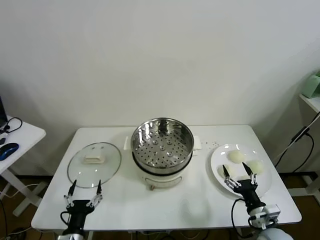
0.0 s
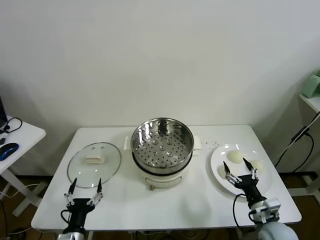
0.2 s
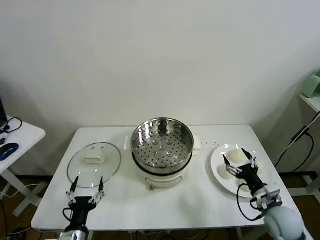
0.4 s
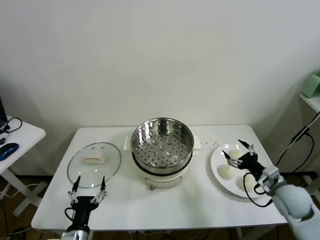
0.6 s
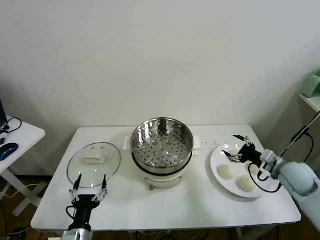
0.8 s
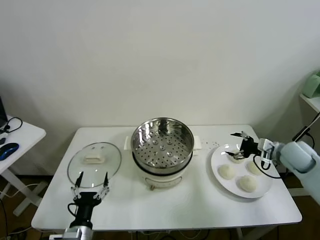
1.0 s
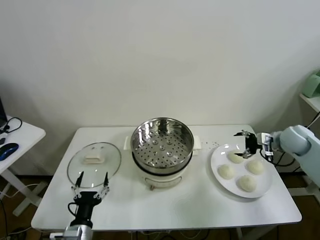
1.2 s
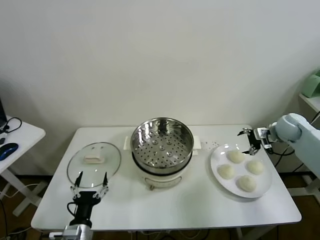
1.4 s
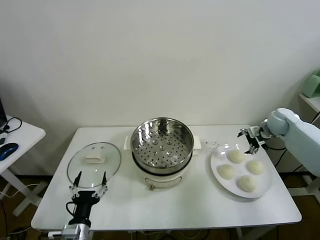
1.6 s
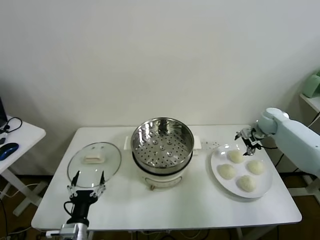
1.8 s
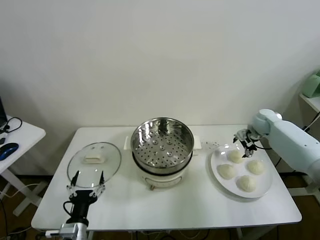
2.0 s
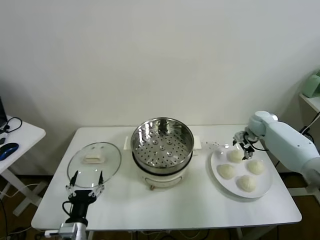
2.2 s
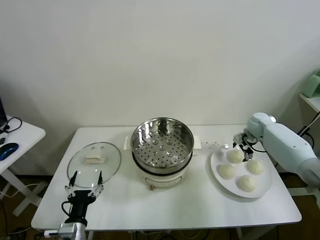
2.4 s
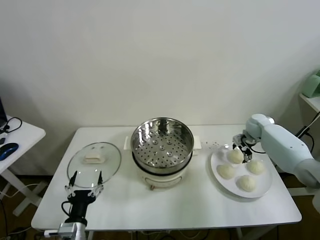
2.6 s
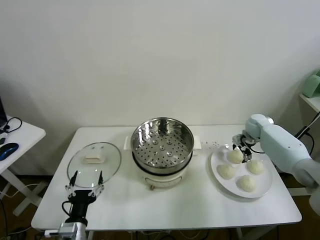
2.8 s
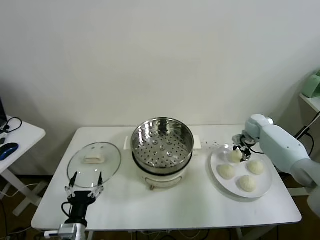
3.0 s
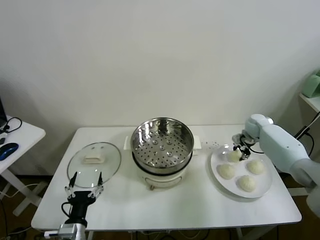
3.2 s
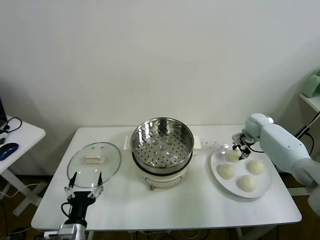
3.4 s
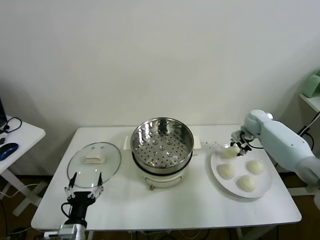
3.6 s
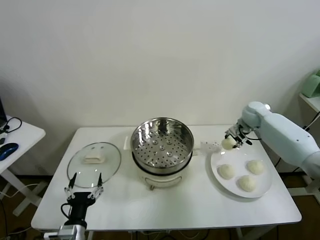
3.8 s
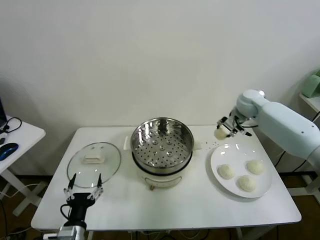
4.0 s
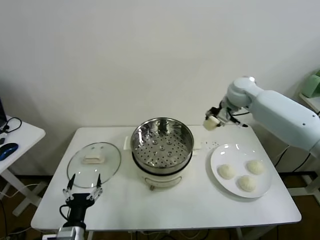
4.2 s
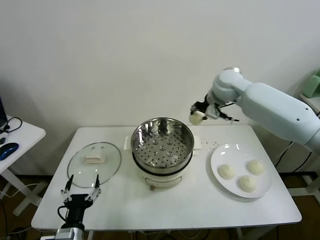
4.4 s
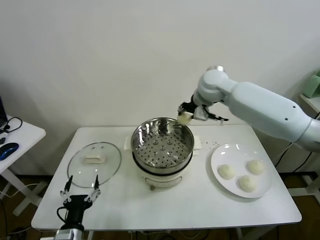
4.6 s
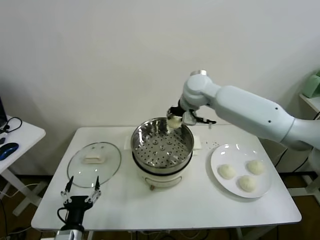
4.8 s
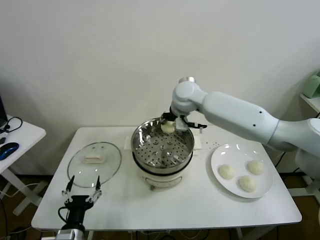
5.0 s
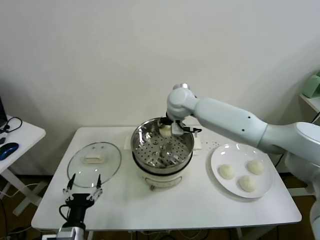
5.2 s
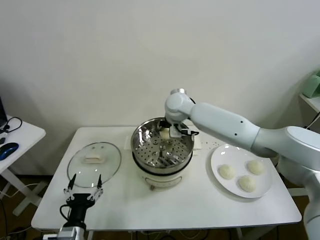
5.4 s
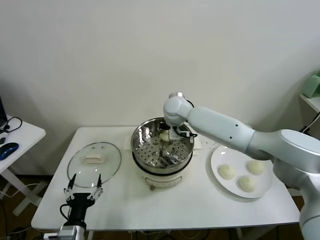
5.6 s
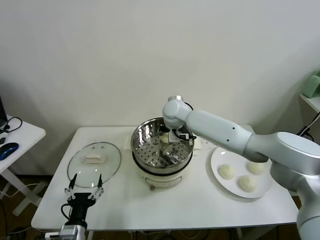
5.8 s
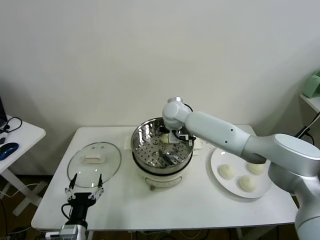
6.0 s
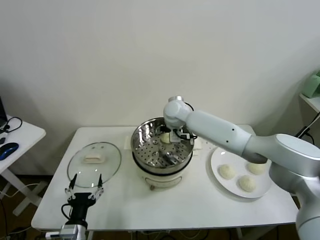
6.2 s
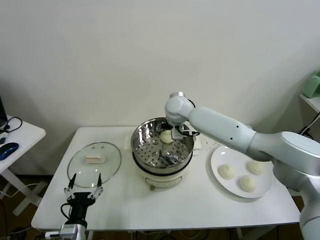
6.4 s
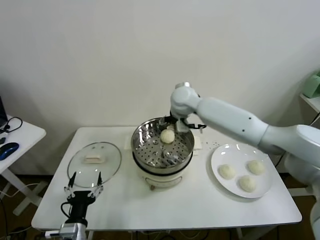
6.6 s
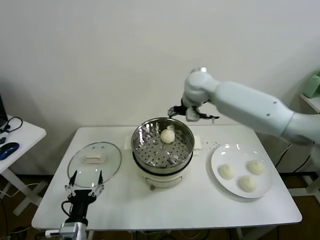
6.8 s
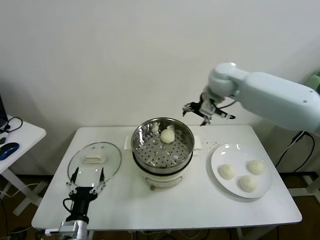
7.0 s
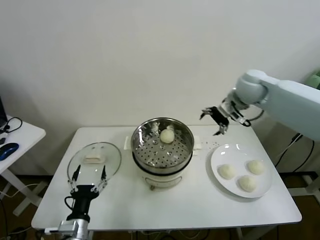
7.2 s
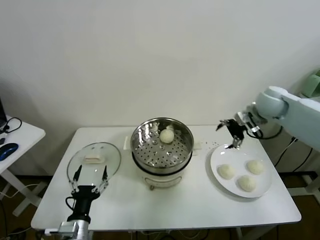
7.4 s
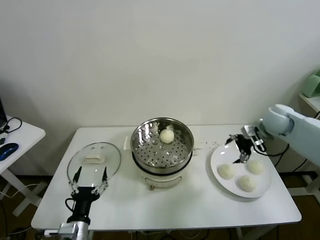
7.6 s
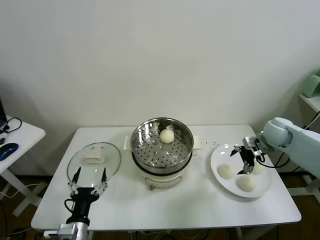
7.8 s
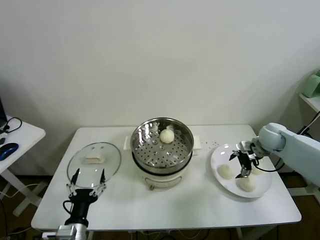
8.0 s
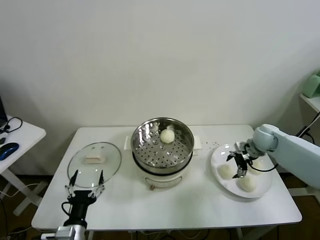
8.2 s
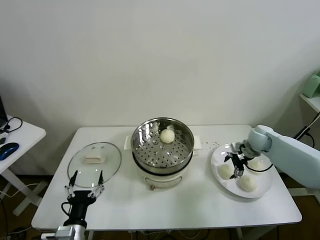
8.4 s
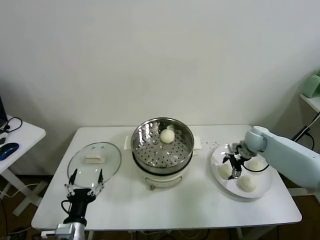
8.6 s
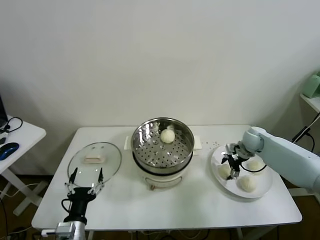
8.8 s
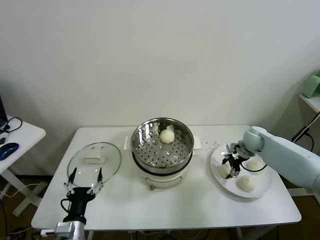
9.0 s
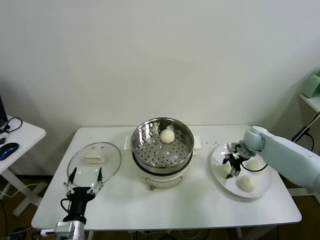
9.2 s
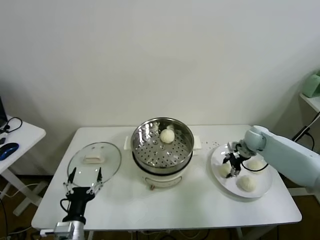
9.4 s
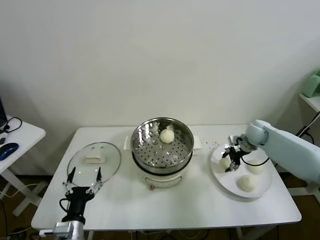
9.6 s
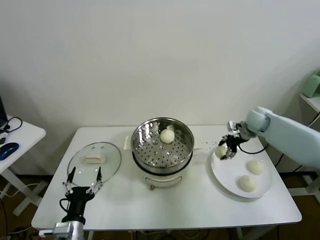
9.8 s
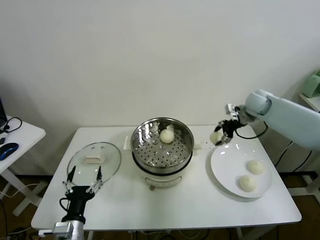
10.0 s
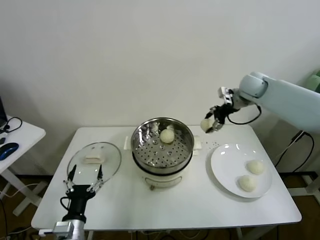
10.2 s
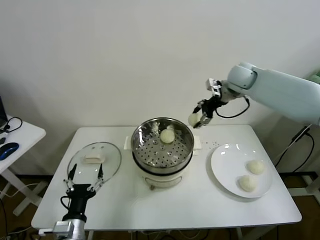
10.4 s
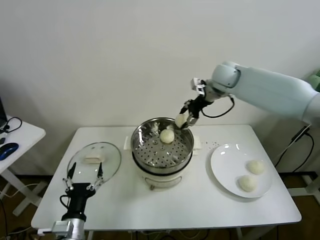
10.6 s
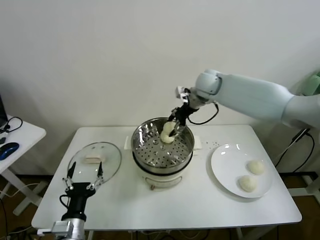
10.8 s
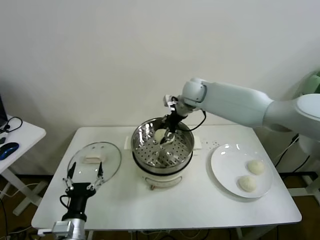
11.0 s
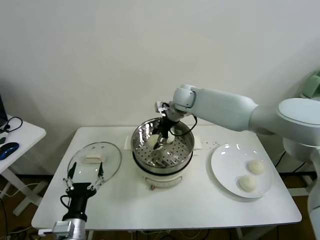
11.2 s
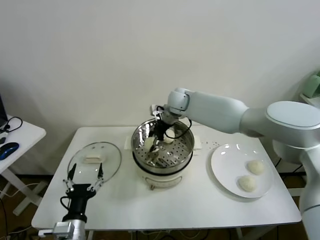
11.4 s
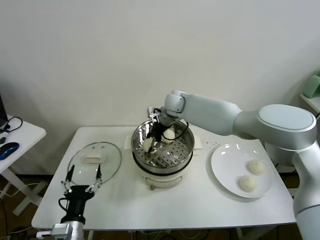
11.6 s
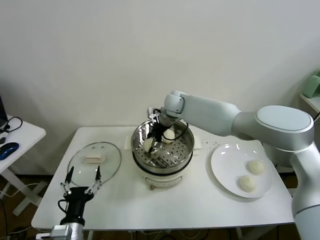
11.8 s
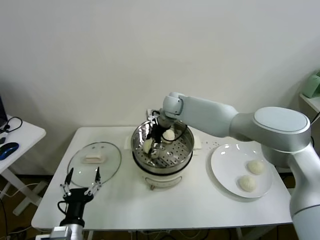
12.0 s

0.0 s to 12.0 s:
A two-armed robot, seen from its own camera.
Task of the whole recording: take steamed baozi put them in steamer.
Step, 0.0 to 3.2 s: Grasp the baozi in the plate with right gripper.
Step, 3.4 to 6.2 s: Place the baozi on the steamer with right gripper.
Step, 6.4 to 9.2 s: Grasp the baozi in the plate with right gripper.
1.6 to 3.0 s: The right gripper is displaced downward by approximately 5 cm, and closes its fingers.
3.0 to 4.4 s: The right gripper shifts some 35 cm upward and to the left.
4.4 to 6.0 s: The right gripper shifts about 20 cm to the left and downward, and opens up.
6.0 to 7.6 s: The right gripper goes approximately 35 cm to the right.
7.6 to 9.0 s: The right gripper is displaced downward by approximately 10 cm, and closes up.
9.0 to 10.4 s: The right gripper shifts approximately 30 cm upward and to the left.
10.4 to 12.0 s: The right gripper goes about 25 cm to the left and downward.

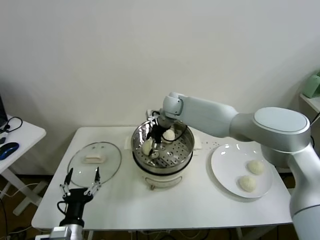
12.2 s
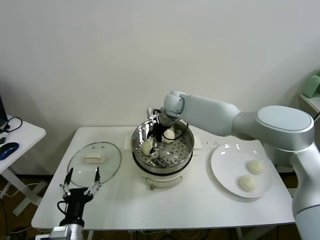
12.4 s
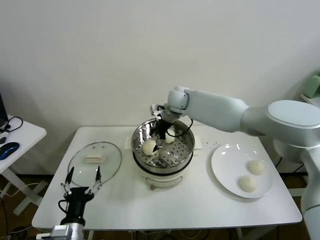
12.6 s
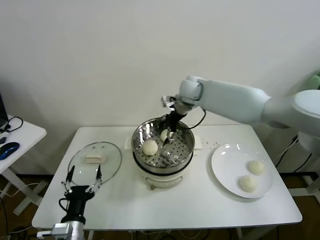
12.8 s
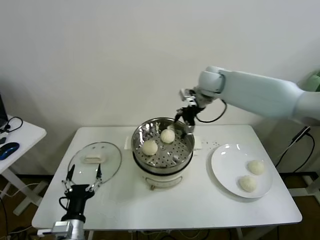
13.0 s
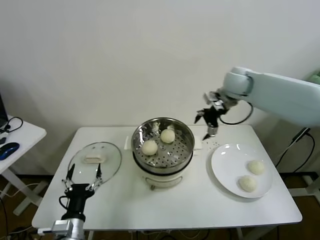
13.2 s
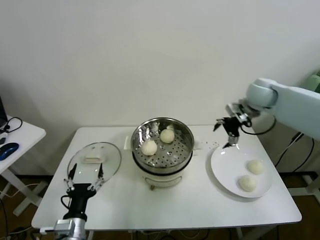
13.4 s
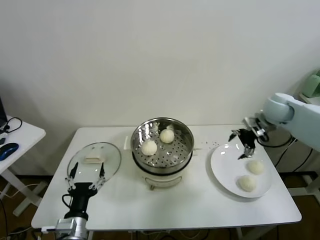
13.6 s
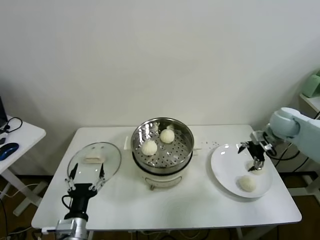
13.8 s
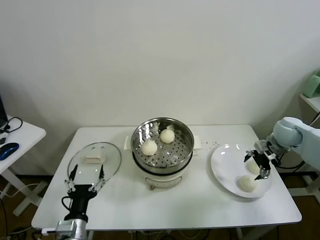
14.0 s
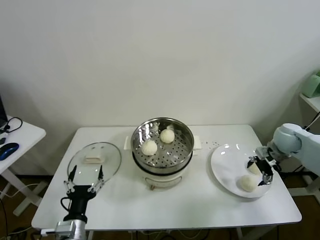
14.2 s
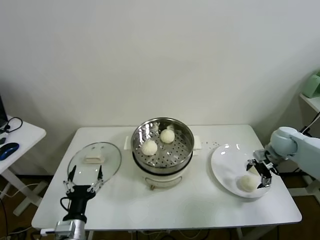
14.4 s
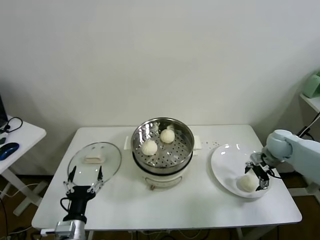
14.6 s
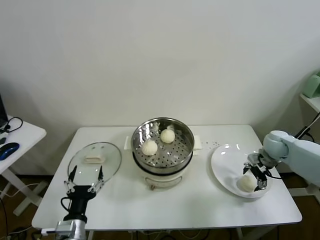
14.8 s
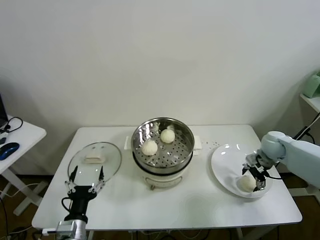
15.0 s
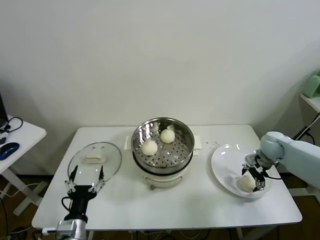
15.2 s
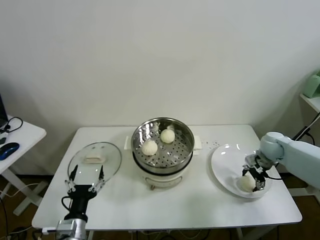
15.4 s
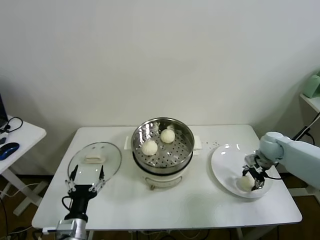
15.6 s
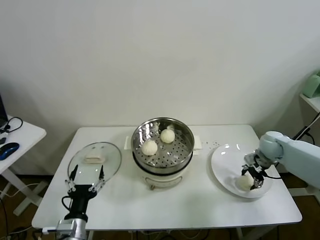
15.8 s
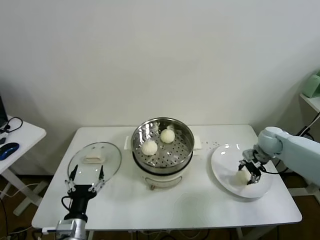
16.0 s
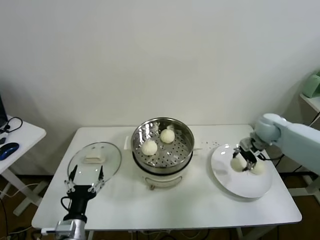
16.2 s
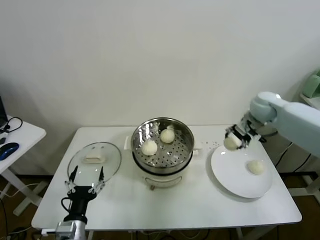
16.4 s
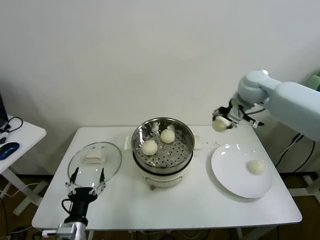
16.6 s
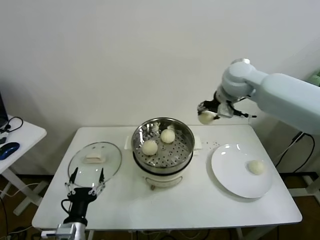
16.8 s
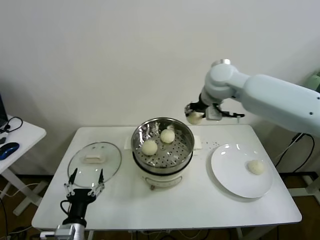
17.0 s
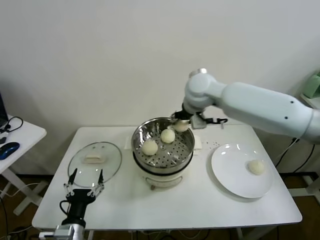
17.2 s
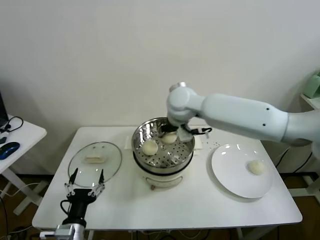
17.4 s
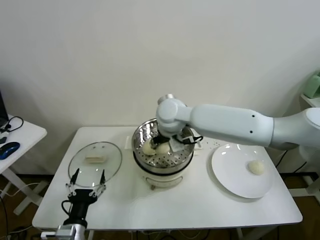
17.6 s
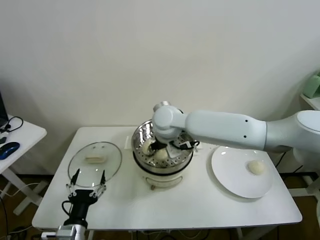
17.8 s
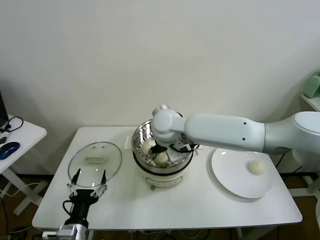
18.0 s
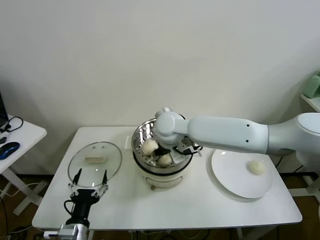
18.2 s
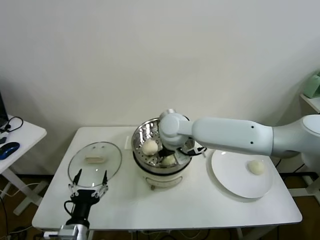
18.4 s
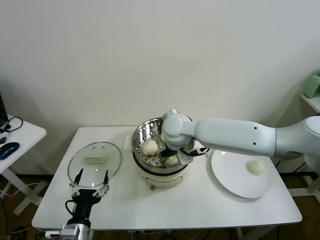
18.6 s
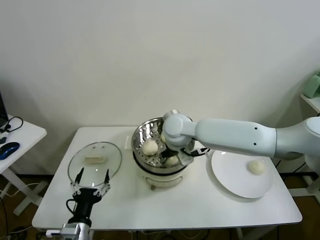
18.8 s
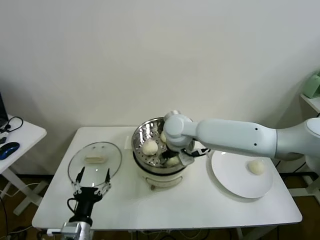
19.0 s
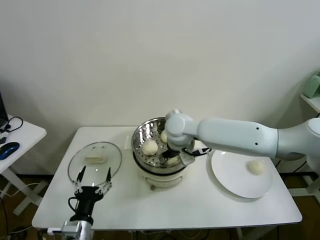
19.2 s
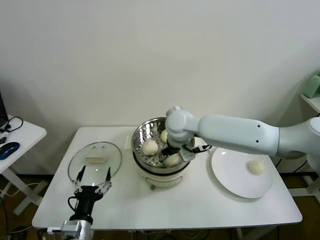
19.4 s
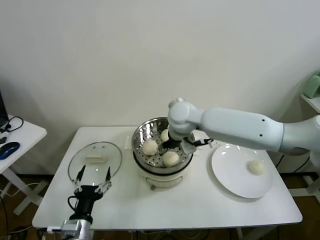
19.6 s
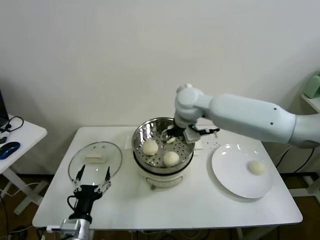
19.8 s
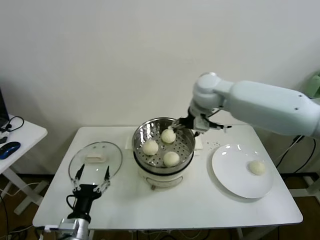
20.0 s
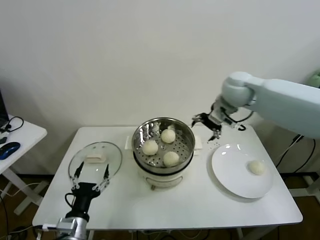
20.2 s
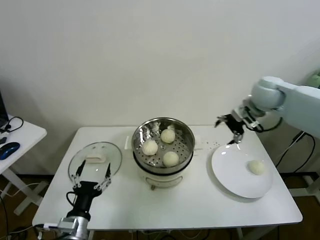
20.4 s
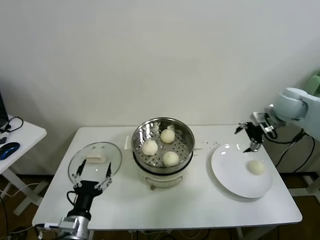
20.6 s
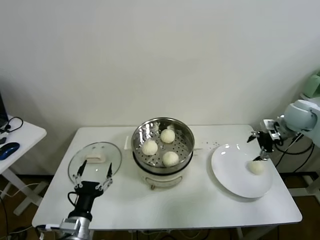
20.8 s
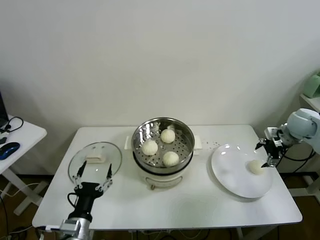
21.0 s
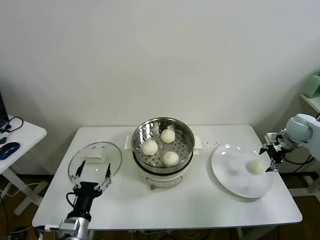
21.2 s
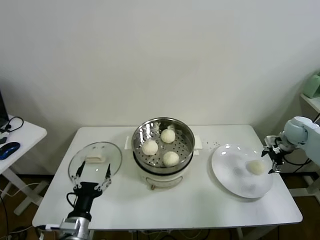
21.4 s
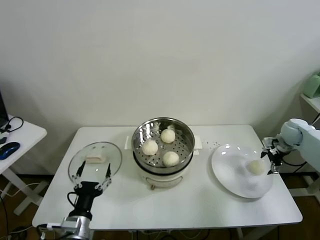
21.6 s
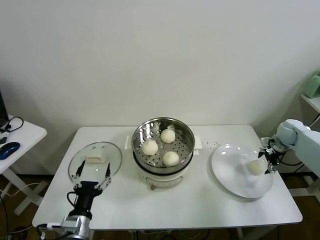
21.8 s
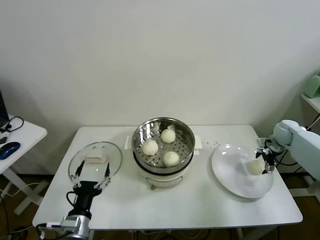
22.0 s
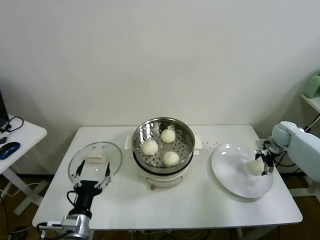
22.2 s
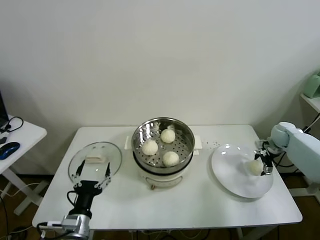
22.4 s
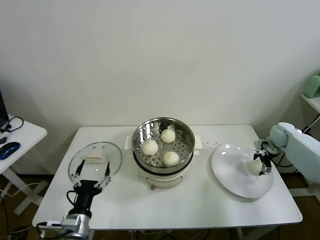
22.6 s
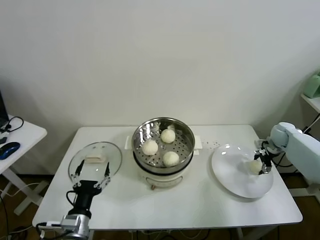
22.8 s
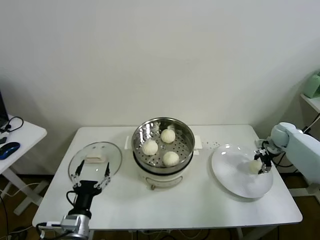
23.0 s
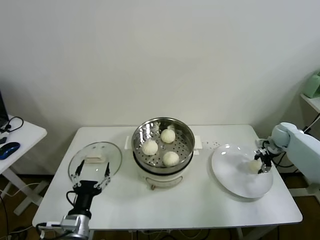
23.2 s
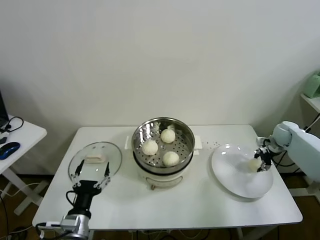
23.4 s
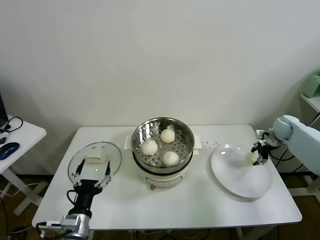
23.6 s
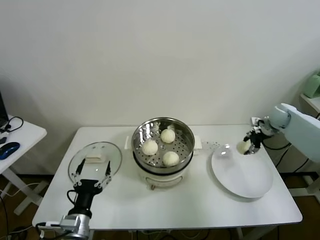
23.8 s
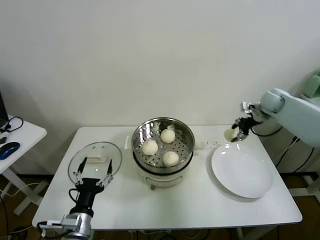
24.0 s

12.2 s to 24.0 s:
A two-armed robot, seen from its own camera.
Task of the whole recording: take steamed baozi put them in steamer.
Step, 12.6 to 15.6 s: Grasp the baozi in the plate with right gripper.
Step, 15.8 to 19.2 s: Place the baozi on the steamer with right gripper.
Step, 19.6 to 23.2 s: Grasp the baozi in the plate with right gripper.
12.2 to 13.6 s: The right gripper travels to the right by roughly 35 cm.
13.6 to 15.2 s: The right gripper travels downward by approximately 15 cm.
15.2 to 16.6 s: The right gripper heads upward and to the left, covering approximately 25 cm, and closes up.
16.6 to 18.2 s: The right gripper shifts some 25 cm to the left.
18.2 to 19.6 s: The right gripper changes place by about 5 cm, and opens its fingers.
19.6 to 21.0 s: The right gripper is displaced to the right by approximately 40 cm.
21.0 to 22.6 s: The right gripper travels downward and forward by some 15 cm.
22.6 to 24.0 s: The right gripper moves upward and to the left, some 15 cm, and closes up.
